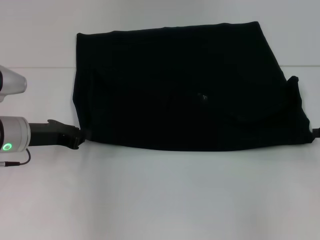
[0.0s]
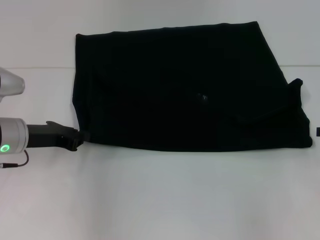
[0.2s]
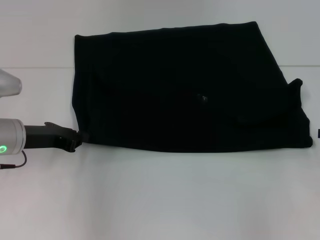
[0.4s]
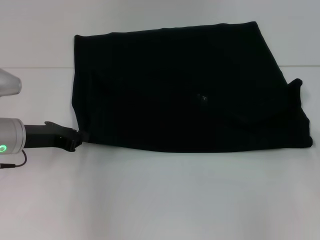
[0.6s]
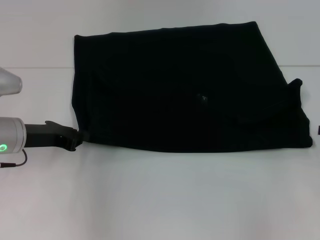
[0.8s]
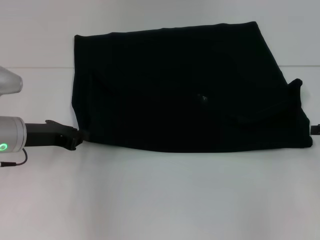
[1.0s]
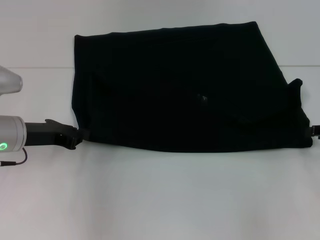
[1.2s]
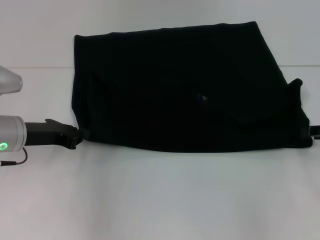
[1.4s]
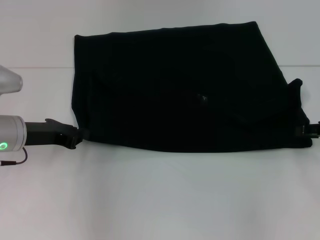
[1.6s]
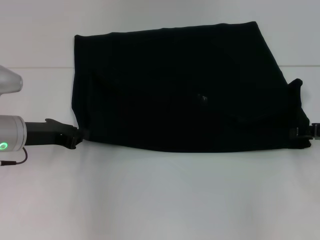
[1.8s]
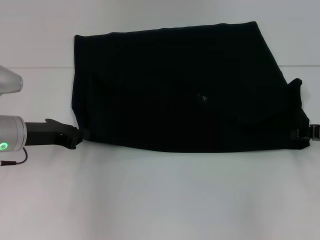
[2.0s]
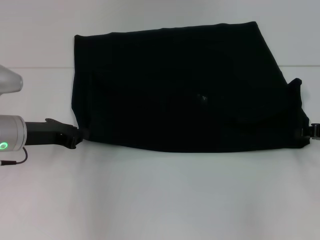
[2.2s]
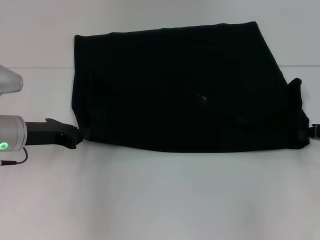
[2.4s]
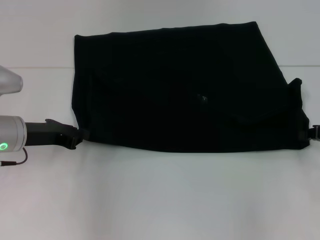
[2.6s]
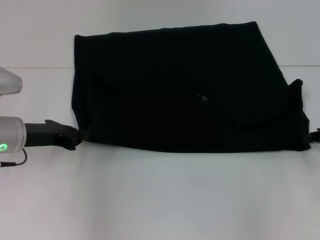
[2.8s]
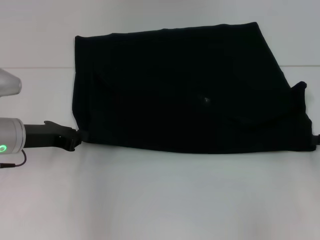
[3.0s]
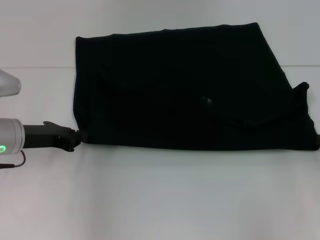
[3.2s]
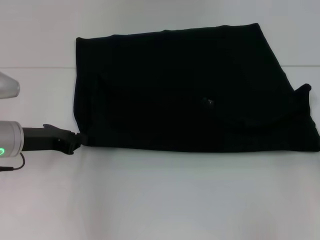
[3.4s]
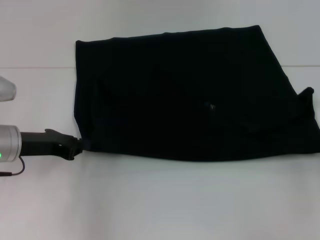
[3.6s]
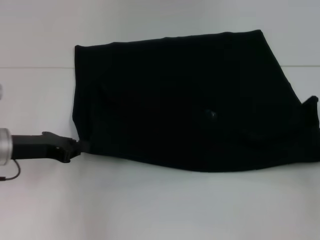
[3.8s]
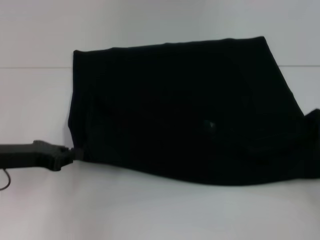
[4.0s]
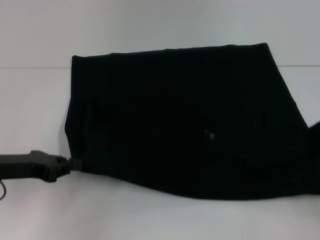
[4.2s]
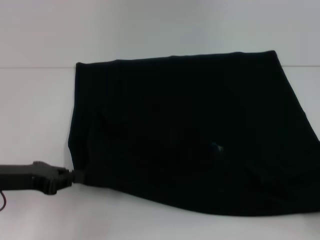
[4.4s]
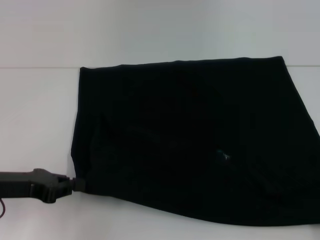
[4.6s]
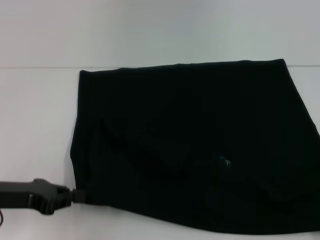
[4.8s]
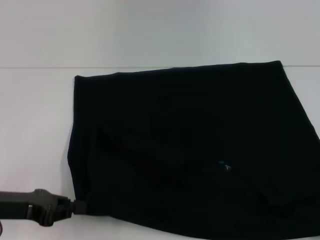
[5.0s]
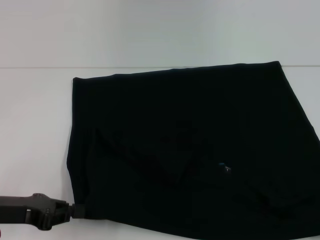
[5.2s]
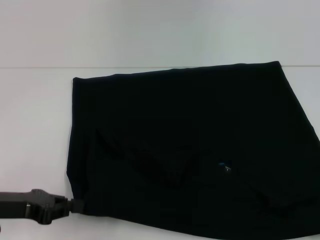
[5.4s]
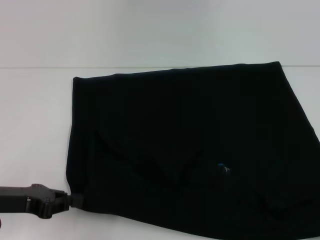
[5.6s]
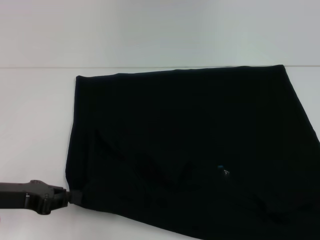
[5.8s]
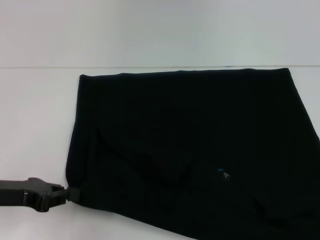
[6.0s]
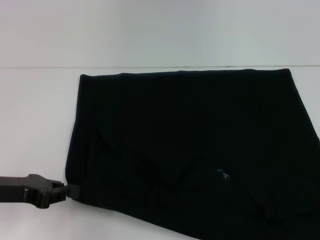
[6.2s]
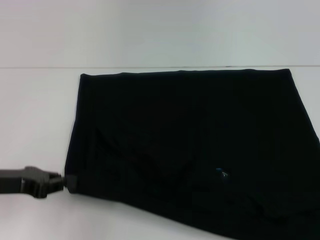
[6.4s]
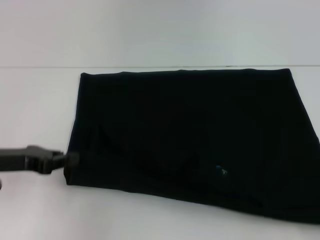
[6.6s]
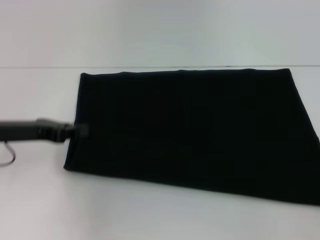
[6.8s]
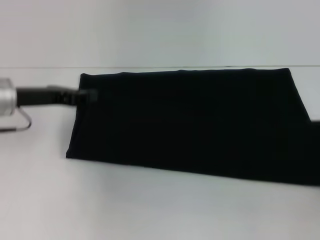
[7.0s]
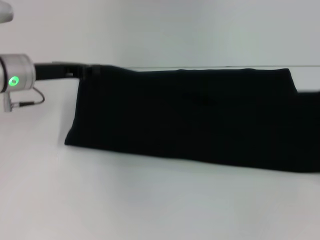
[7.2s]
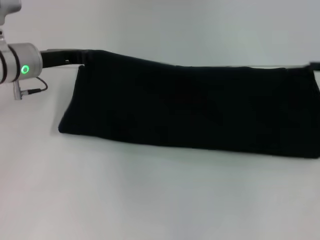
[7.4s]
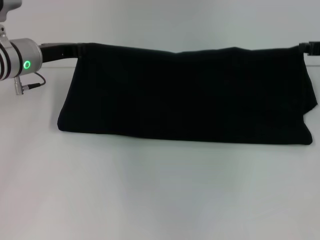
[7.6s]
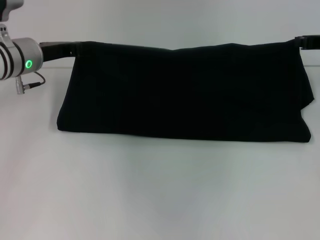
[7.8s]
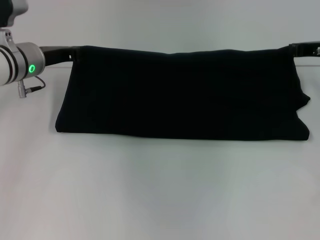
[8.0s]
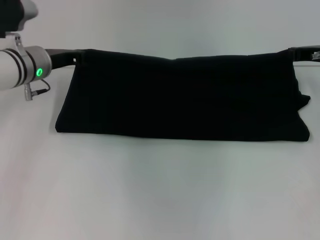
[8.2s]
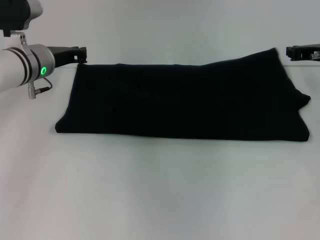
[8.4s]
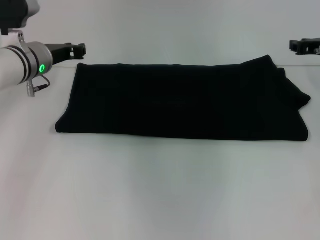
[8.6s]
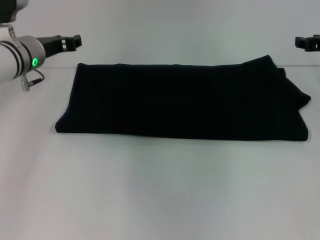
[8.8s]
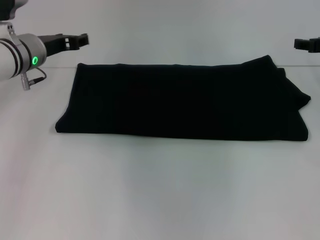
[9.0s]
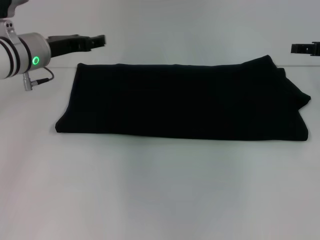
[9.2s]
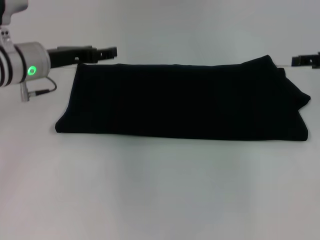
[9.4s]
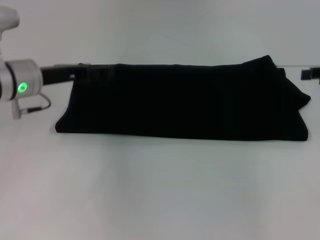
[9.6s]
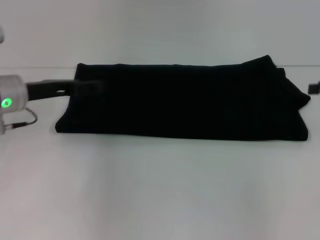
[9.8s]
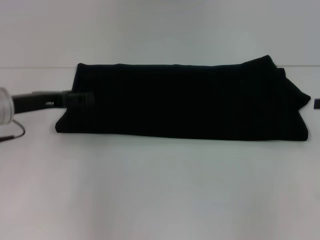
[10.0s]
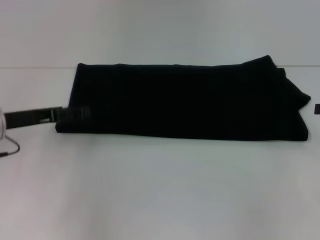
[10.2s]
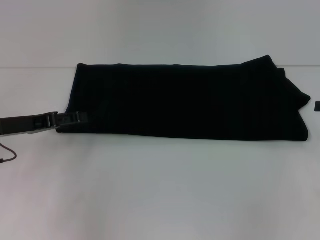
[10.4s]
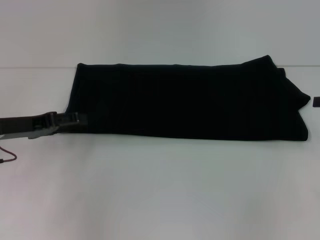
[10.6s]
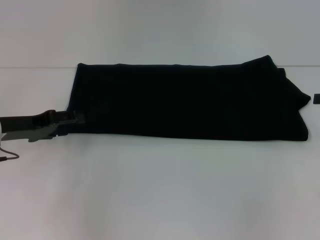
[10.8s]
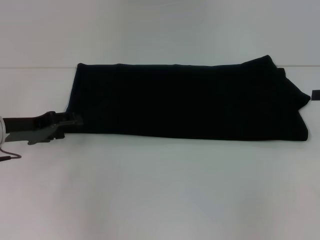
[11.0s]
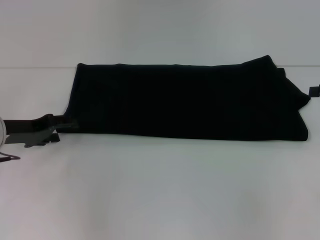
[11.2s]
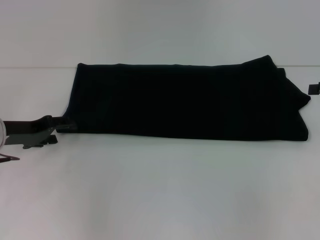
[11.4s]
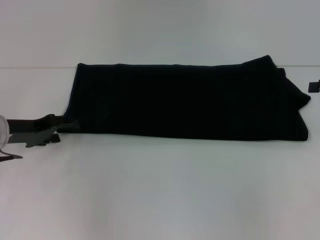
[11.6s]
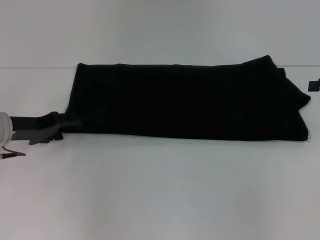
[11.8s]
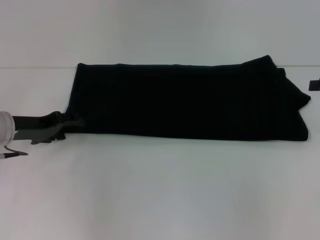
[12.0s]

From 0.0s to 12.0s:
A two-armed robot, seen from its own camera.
Step, from 0.0s to 6.0s: Pull the clothes with your left hand.
Step, from 0.0s to 6.0s: Pull the clothes with your right hand.
Step, from 6.2s to 8.2s: Fold the clothes with your right hand.
From 0.0s to 1.6s: The right gripper opens.
From 1.6s to 3.0s: The right gripper closes its fingers.
From 3.0s to 4.4s: The right gripper travels backward by some 15 cm. Meanwhile the left gripper moves backward, approximately 5 cm.
From 4.4s to 6.0s: The right gripper heads backward, covering approximately 5 cm.
From 6.0s to 7.6s: The left gripper is displaced forward by approximately 20 cm. Meanwhile the right gripper heads forward, covering about 30 cm.
From 7.6s to 9.0s: The right gripper opens its fingers. Meanwhile the left gripper opens.
From 9.0s to 10.4s: The right gripper shifts roughly 10 cm backward and to the right; the left gripper shifts some 15 cm backward and to the left, and opens up.

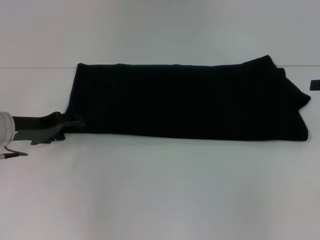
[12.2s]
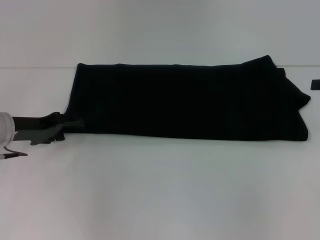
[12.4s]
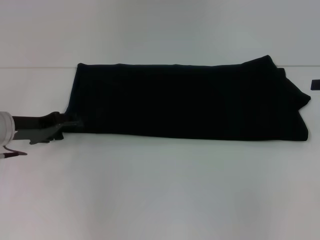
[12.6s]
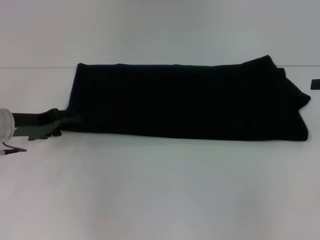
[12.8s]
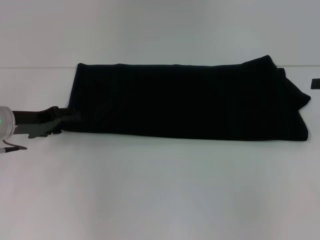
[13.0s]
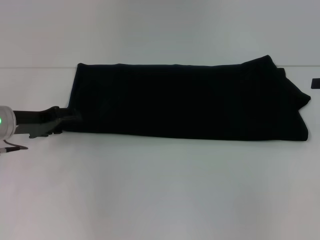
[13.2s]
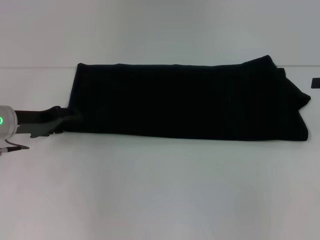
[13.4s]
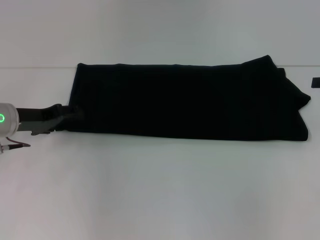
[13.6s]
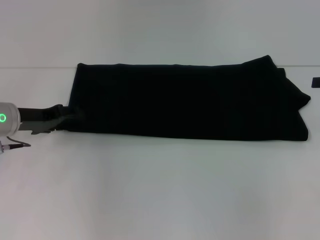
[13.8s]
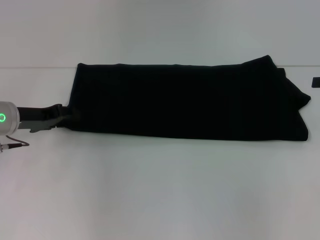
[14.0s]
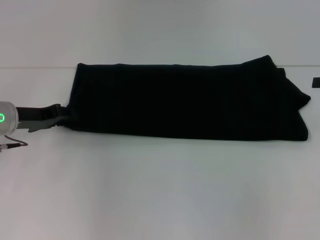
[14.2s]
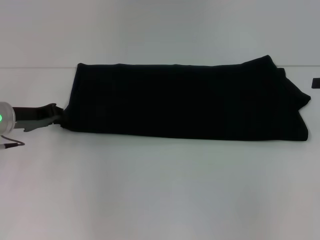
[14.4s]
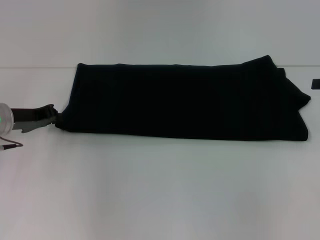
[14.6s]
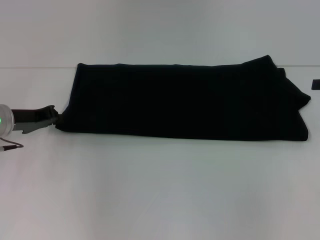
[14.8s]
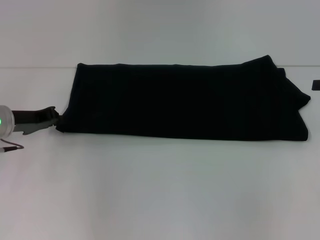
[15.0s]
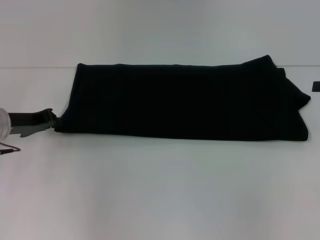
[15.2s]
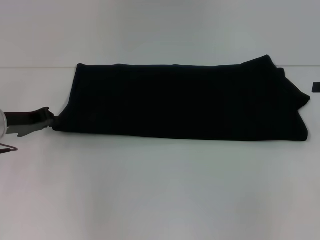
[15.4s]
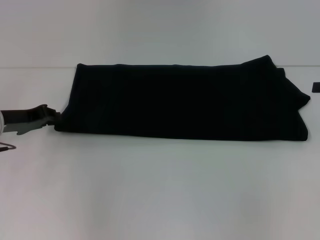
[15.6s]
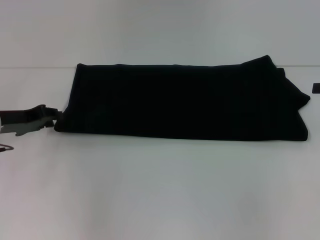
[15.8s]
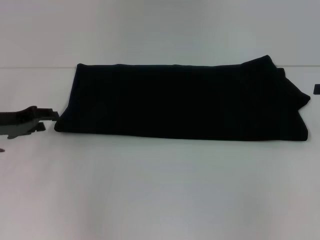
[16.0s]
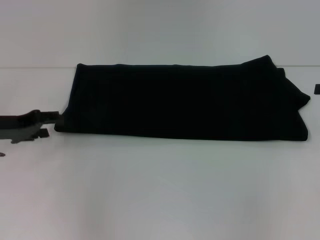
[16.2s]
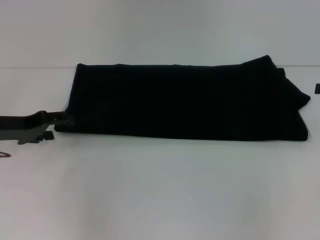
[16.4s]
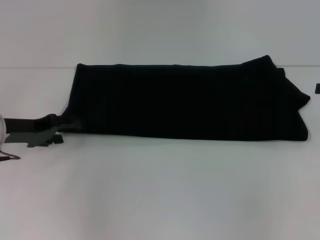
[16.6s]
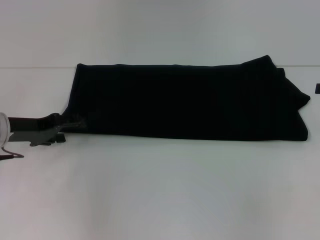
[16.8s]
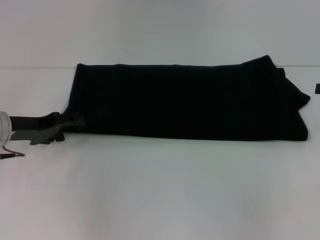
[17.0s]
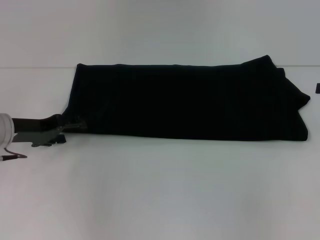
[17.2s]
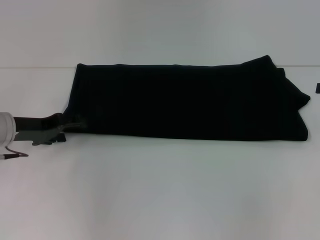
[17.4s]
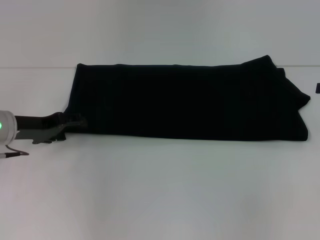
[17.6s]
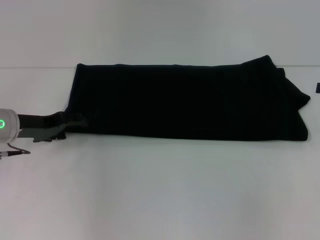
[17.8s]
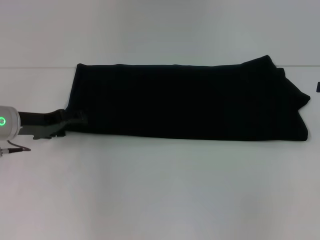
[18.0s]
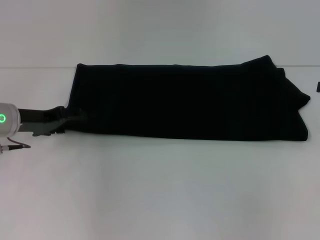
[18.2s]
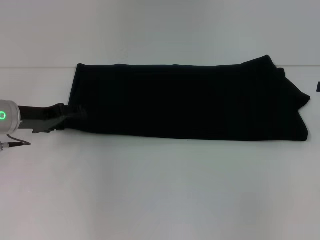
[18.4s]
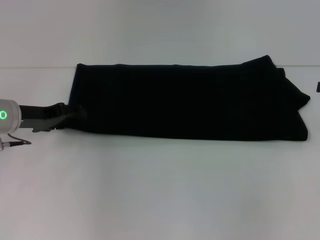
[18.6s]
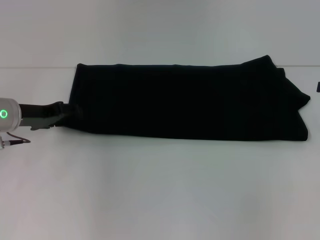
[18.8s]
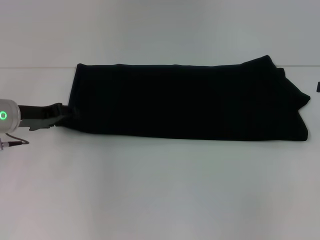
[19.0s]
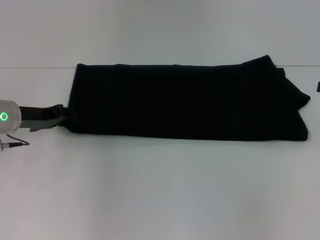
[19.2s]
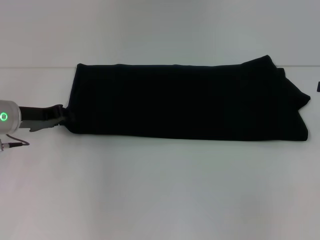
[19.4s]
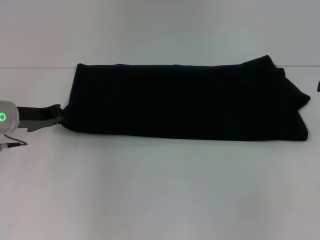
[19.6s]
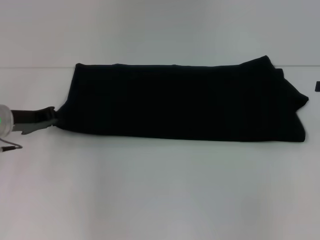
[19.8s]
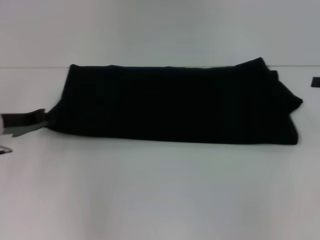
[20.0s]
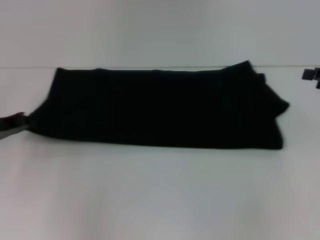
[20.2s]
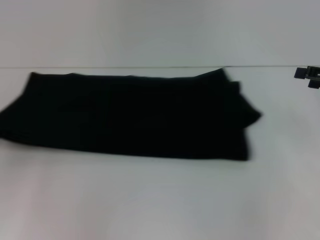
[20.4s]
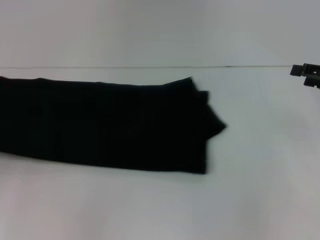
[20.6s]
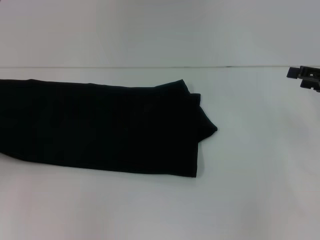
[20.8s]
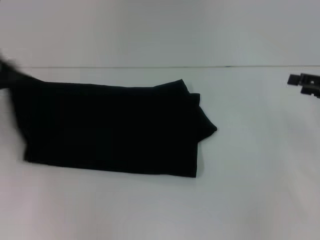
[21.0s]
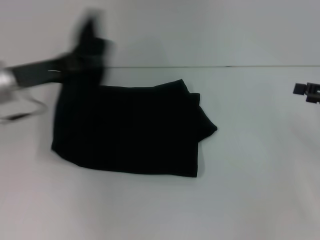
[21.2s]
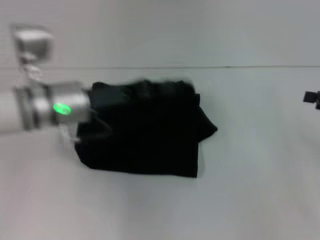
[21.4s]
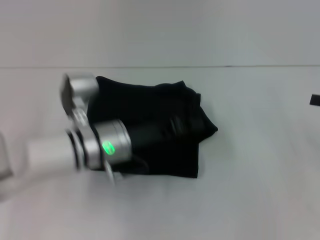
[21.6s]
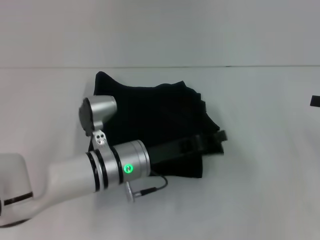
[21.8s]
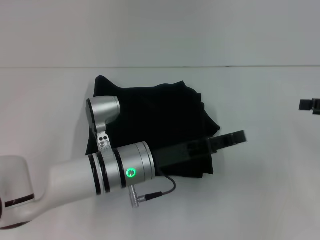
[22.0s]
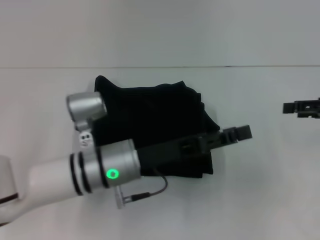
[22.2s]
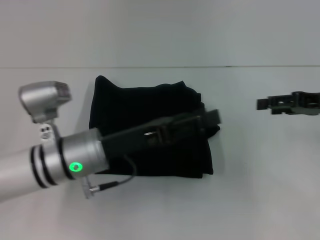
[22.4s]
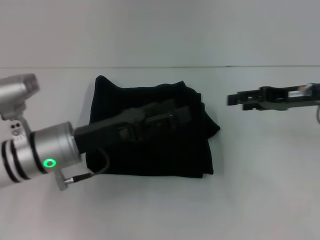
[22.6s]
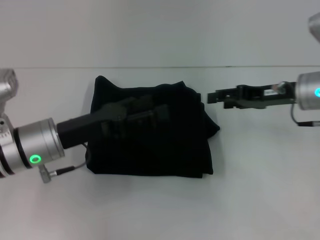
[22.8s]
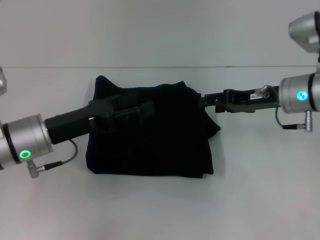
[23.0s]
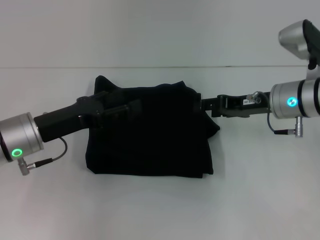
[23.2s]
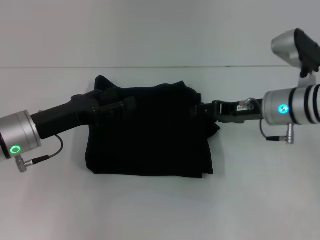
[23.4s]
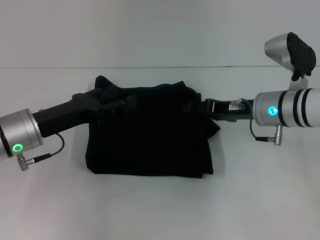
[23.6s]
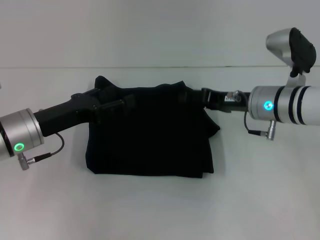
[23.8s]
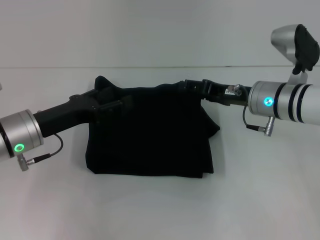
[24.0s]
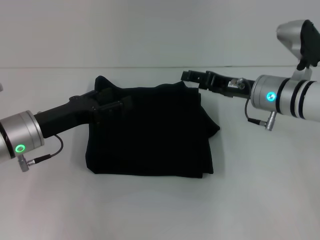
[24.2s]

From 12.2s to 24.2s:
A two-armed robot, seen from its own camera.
Step, from 12.2s to 22.6s: Fold the clothes with your left hand.
From 12.2s to 13.8s: The grippers stay close to where they were, moving slightly.
From 13.8s to 15.2s: The left gripper closes.
From 15.2s to 16.6s: The left gripper opens.
From 16.6s to 18.2s: The grippers make only small movements.
From 18.2s to 19.8s: The left gripper closes its fingers.
From 19.8s to 21.2s: The left gripper travels upward by some 10 cm, and travels to the left and back again, approximately 15 cm each way.
From 21.2s to 22.6s: The left gripper is displaced to the right, downward and backward by approximately 10 cm, and opens up; the right gripper goes roughly 10 cm to the left.
From 22.6s to 24.2s: The grippers both shift to the left by roughly 5 cm.
